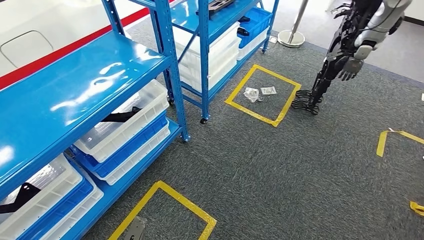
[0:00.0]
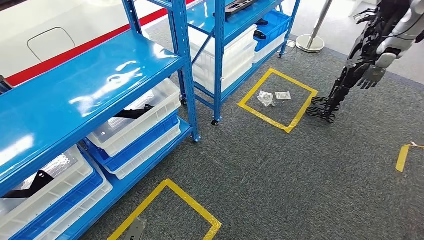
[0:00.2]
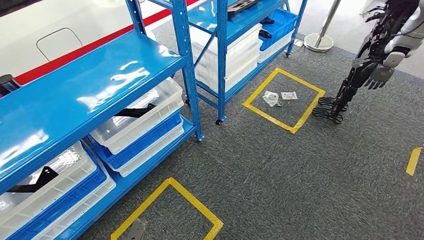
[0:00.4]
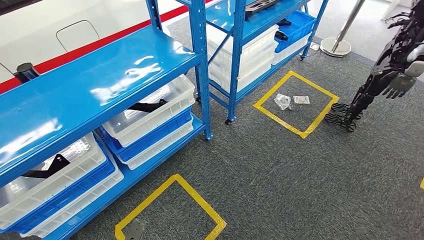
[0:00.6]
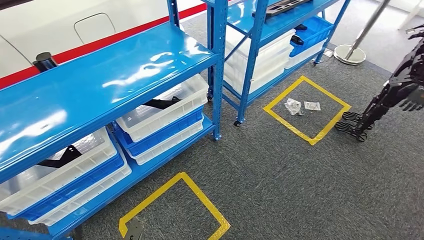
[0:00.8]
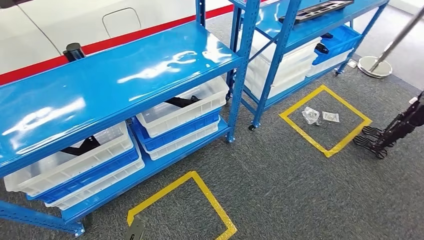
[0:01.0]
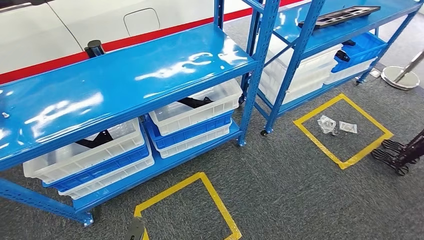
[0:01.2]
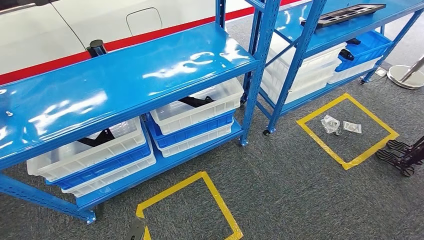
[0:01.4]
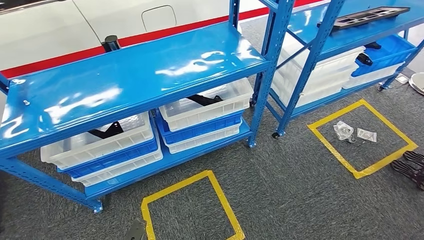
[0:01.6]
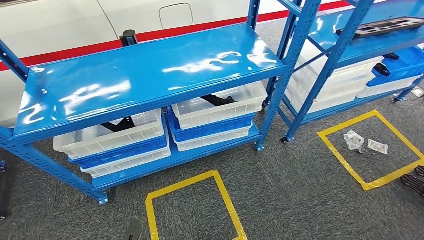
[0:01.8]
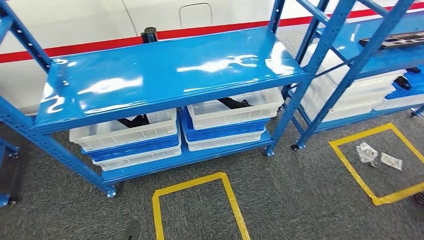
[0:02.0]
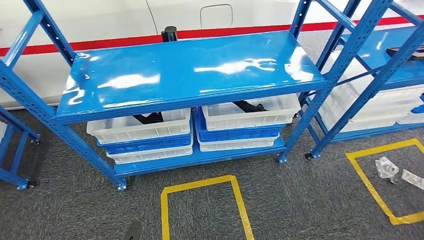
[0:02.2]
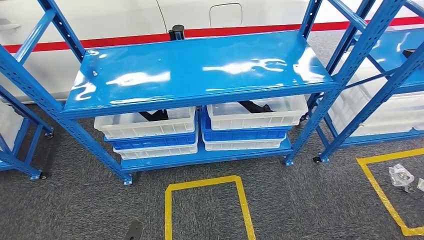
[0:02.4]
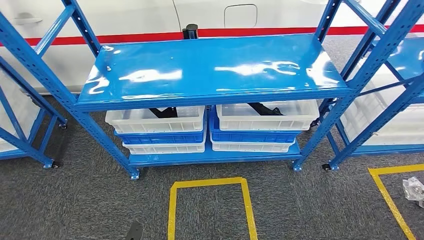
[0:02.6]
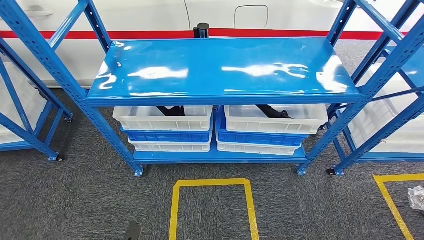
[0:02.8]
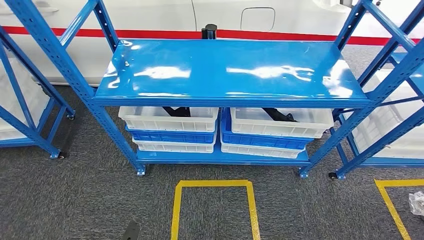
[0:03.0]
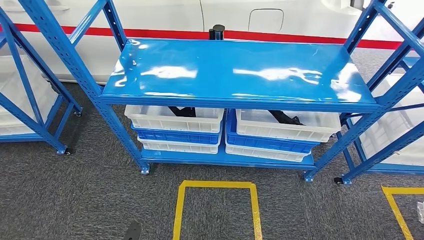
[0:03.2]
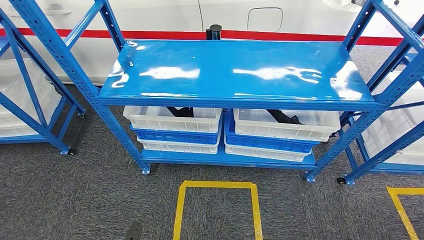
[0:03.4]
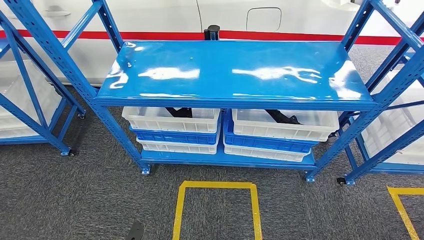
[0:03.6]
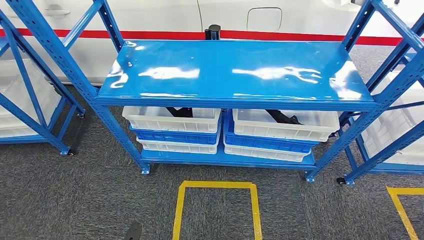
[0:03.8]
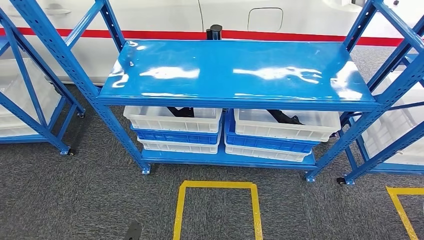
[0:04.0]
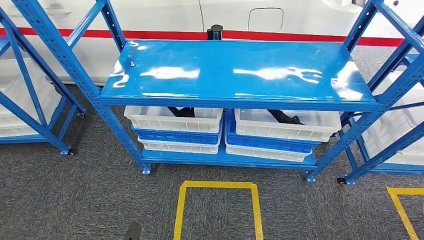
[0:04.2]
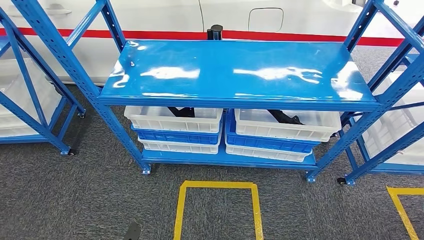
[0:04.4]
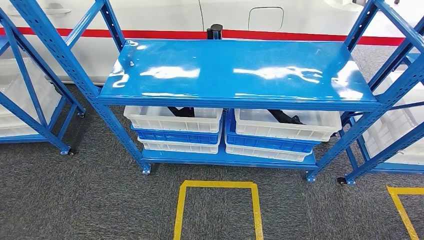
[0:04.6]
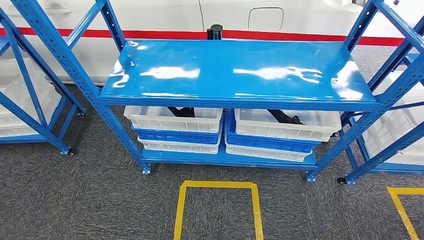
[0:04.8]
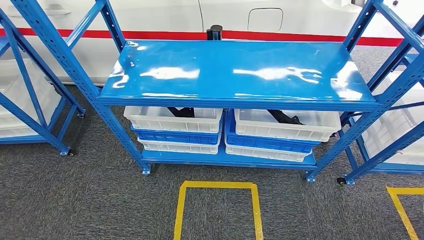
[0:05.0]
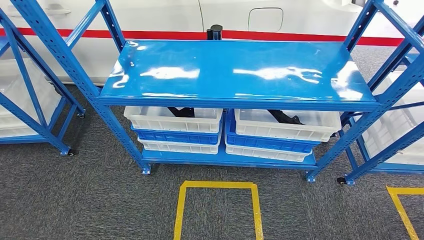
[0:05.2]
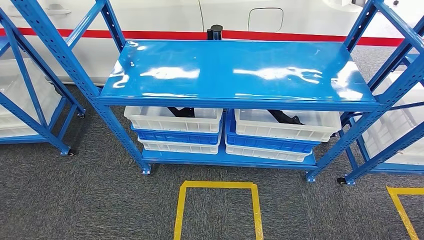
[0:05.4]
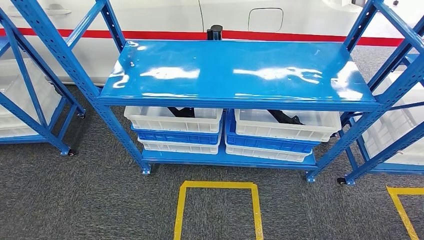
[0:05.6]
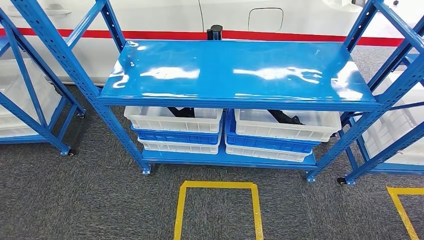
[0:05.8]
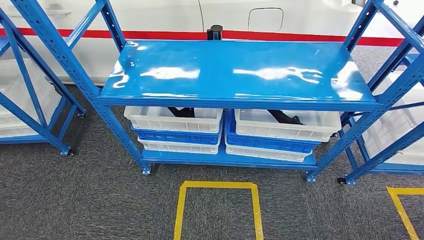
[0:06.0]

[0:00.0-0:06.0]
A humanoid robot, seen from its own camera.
Step, 0:00.0 to 0:05.8: Move to the initial position of the shelf.
